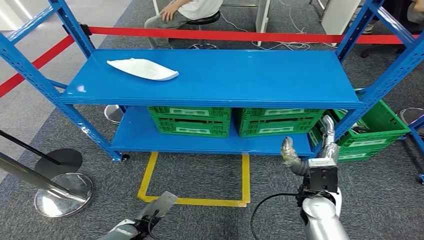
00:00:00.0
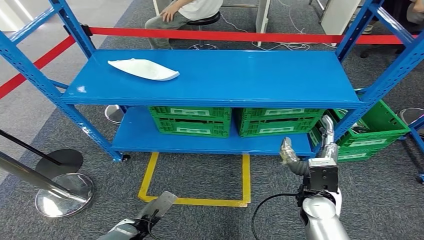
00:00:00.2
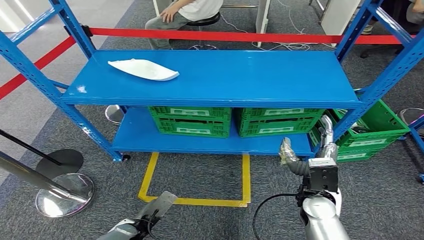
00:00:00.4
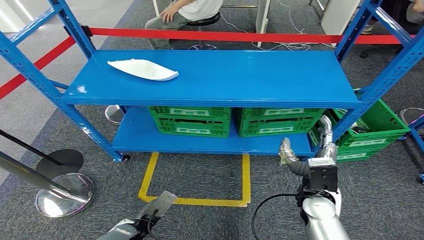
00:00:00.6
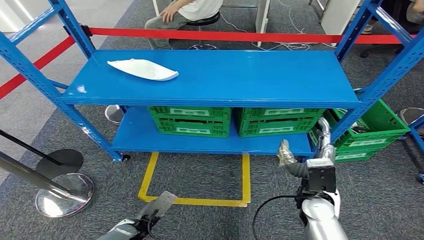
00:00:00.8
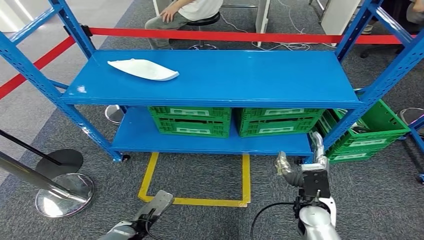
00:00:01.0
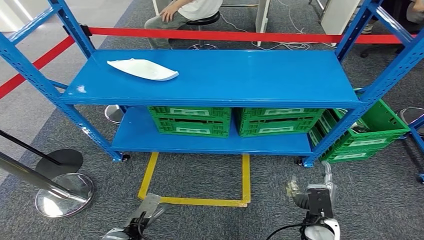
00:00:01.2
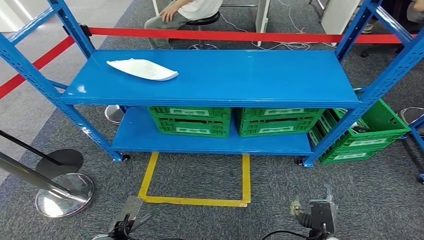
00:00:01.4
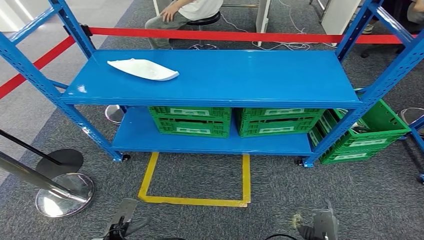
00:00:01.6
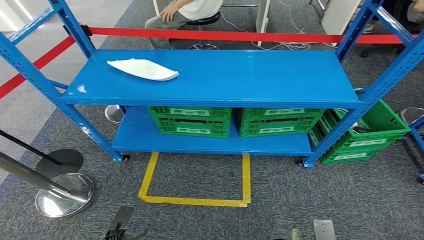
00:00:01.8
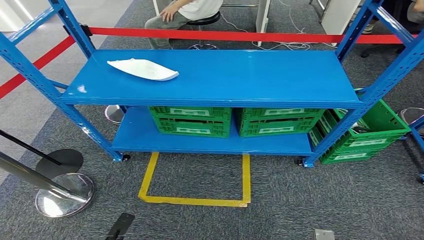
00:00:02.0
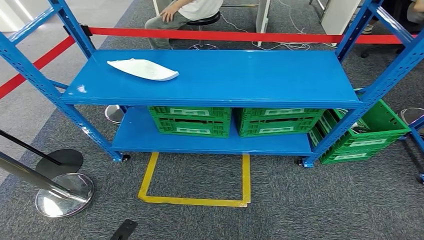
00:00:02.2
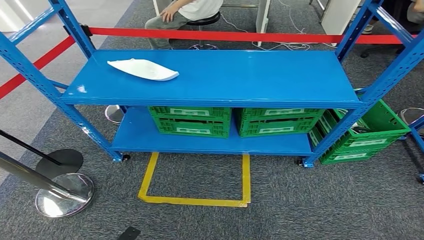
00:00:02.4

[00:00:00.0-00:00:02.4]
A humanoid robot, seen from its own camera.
Step, 00:00:00.0 to 00:00:02.4: Move to the initial position at the workbench.
00:00:00.0 to 00:00:01.2: The right hand heads downward and backward, covering about 15 cm.
00:00:01.2 to 00:00:02.4: The right hand heads backward and downward, covering some 20 cm. The left hand moves backward and to the left, approximately 10 cm.
